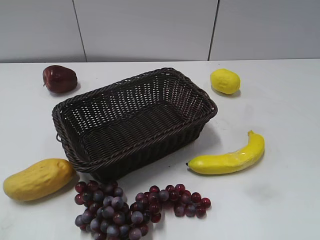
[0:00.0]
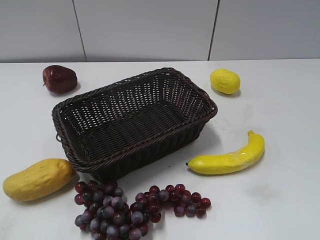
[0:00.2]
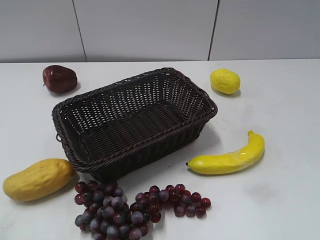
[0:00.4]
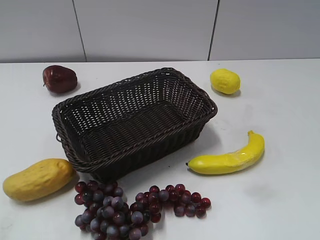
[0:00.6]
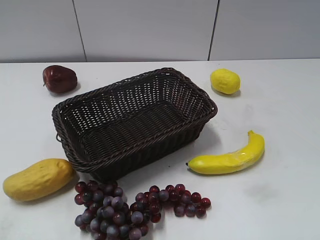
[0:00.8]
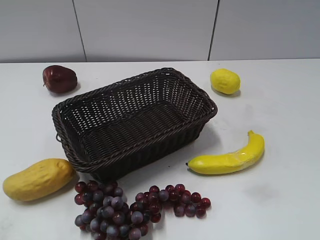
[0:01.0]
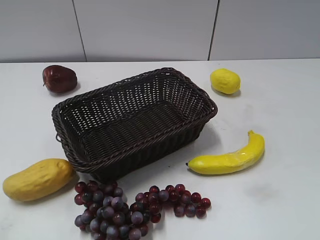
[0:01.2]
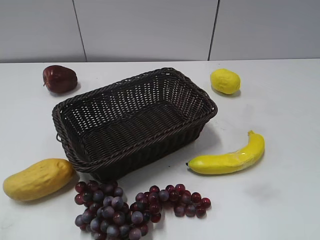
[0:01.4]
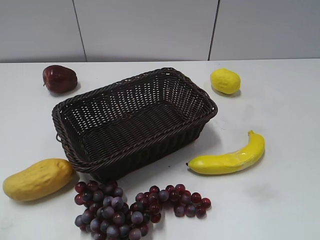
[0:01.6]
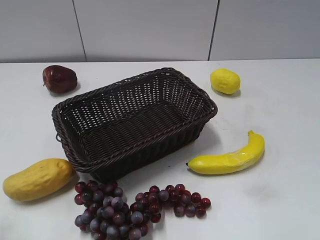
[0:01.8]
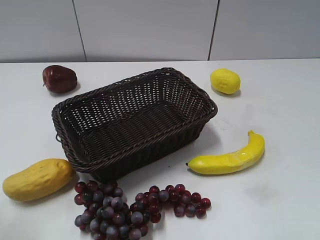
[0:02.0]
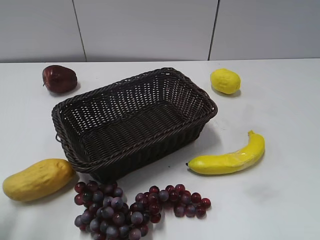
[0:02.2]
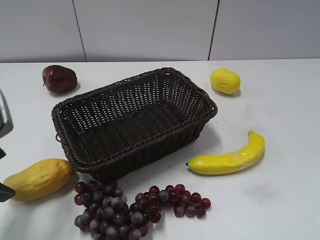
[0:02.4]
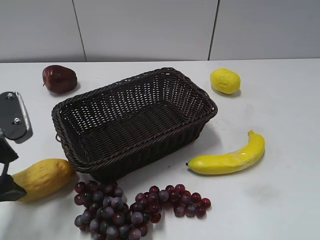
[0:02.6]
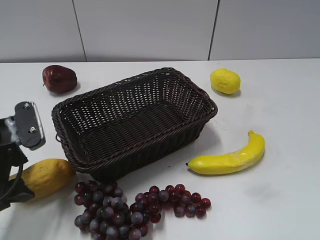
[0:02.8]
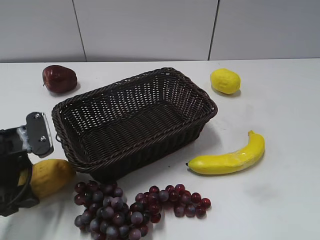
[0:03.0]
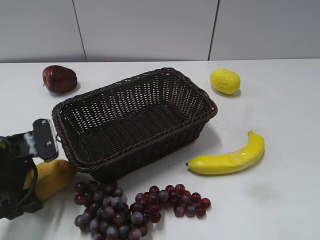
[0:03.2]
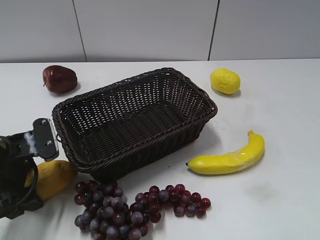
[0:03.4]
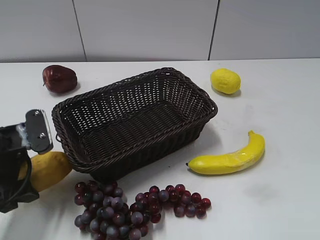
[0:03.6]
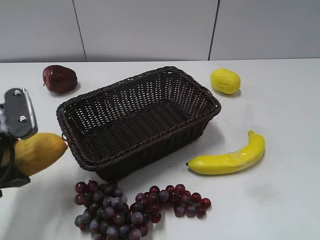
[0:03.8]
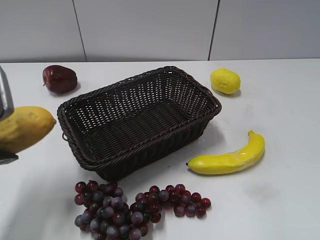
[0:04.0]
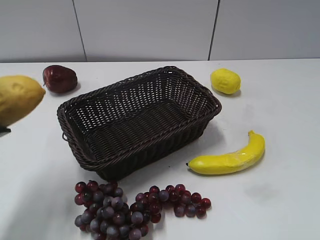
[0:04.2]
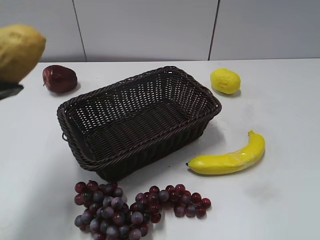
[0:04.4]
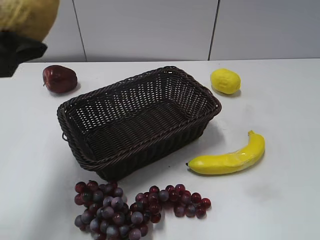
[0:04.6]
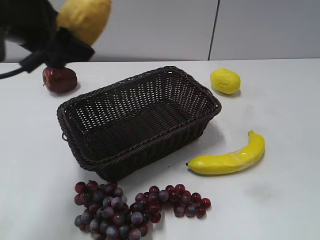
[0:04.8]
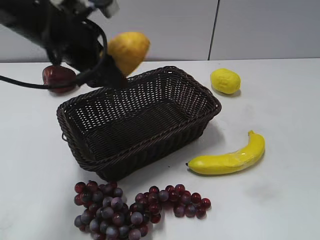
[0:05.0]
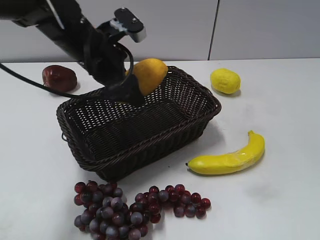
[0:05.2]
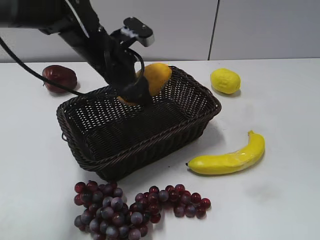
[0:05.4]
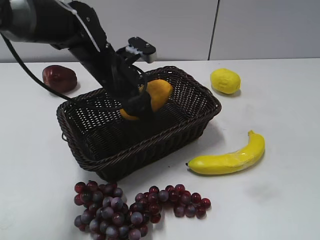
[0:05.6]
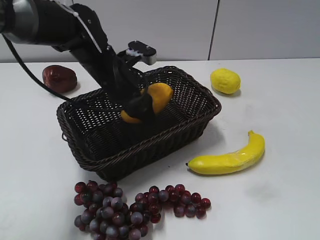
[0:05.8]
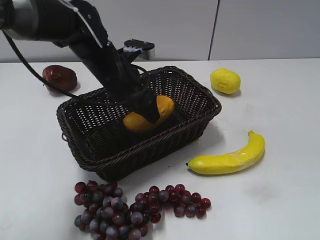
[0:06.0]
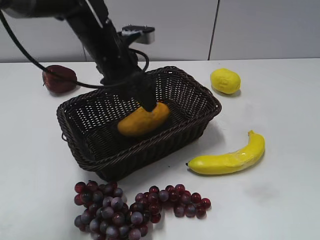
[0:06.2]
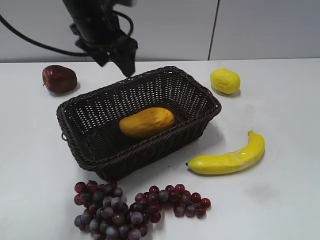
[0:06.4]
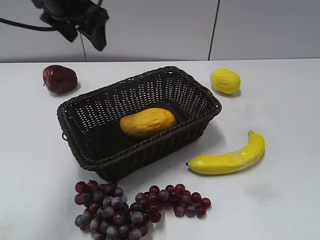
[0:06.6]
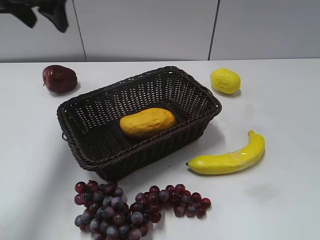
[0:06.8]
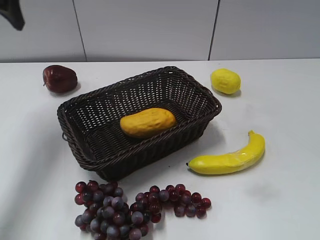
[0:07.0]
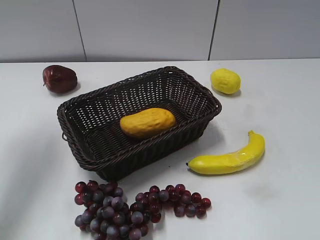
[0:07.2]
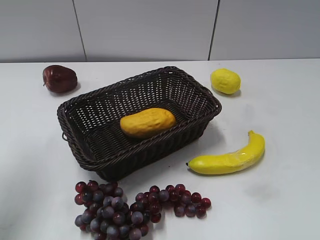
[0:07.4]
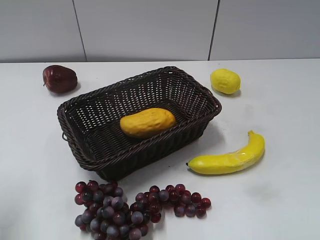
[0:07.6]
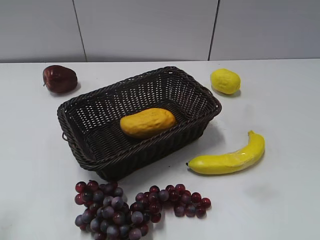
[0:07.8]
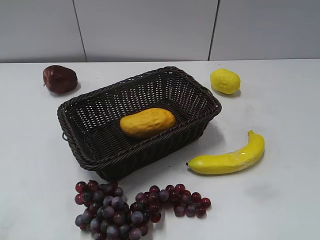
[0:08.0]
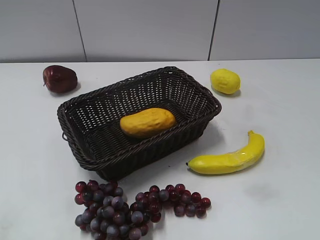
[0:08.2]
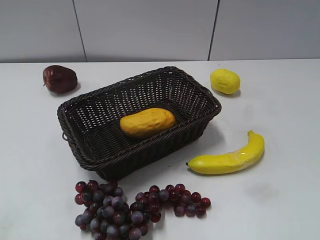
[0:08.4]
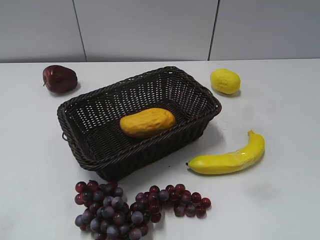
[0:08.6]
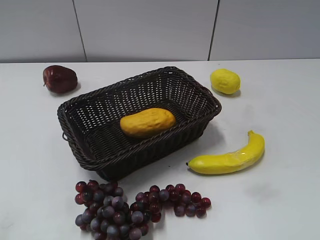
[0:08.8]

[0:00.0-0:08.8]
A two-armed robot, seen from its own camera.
Step, 0:02.4 to 0:03.4: Grasp the mango with left gripper.
Step, 0:03.6 to 0:06.0: Place the mango in the basket with left gripper.
0:01.4 to 0:03.0: The left gripper goes roughly 25 cm forward and downward, and opens its fingers.
0:03.0 to 0:04.4: The left gripper travels upward by roughly 15 cm, and closes up.
0:04.4 to 0:05.8: The left gripper is displaced forward, to the right and downward by about 30 cm.
0:05.8 to 0:07.4: The left gripper heads to the left, upward and backward, covering some 30 cm, and opens, then closes again.
0:07.4 to 0:08.8: The left gripper is displaced backward by about 25 cm, and closes up.
